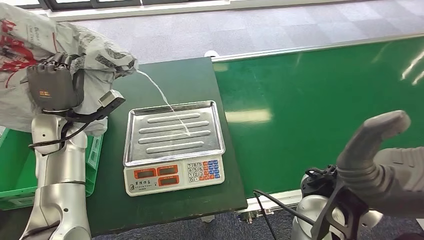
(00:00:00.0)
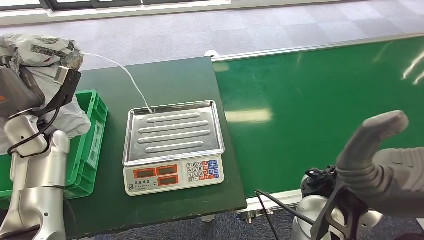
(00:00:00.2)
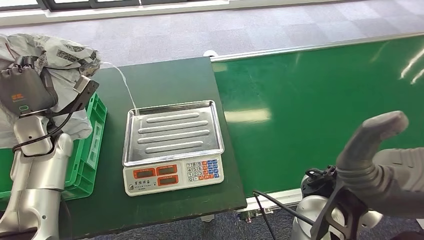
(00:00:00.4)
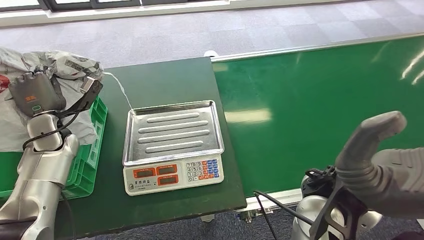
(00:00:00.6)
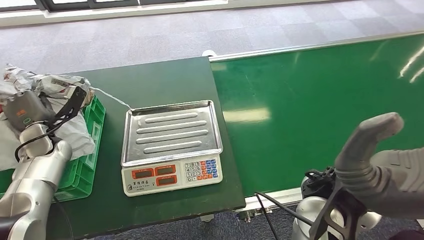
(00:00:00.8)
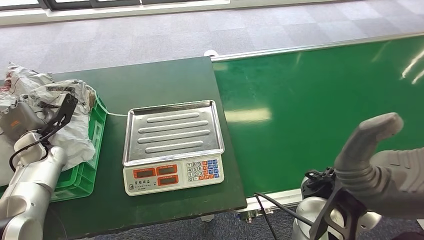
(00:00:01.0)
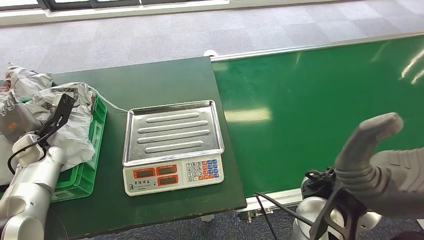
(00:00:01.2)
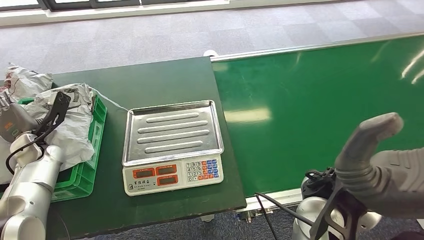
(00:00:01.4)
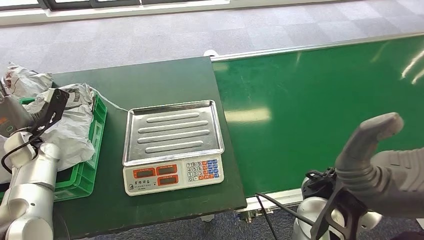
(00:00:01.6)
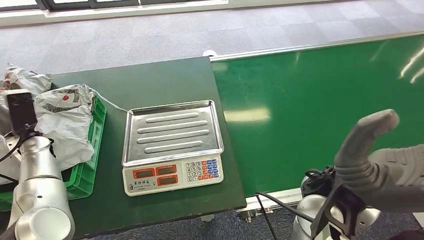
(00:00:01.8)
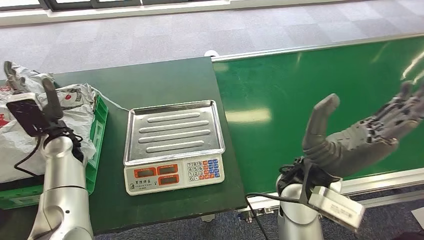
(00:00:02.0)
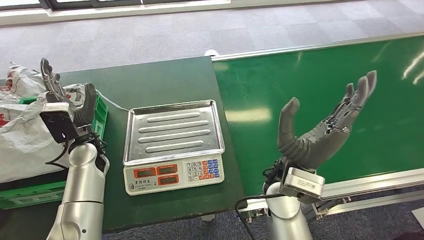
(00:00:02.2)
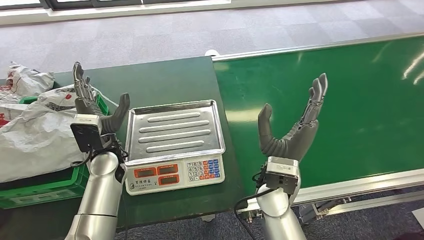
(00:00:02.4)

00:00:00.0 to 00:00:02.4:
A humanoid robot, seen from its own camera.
Task of the whole recording: Weigh the package on the weighing device and place it in the left basket.
Step, 00:00:00.0 to 00:00:02.4: Place the package into the parcel locker.

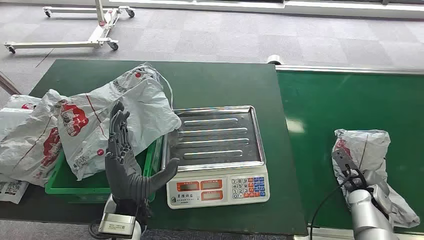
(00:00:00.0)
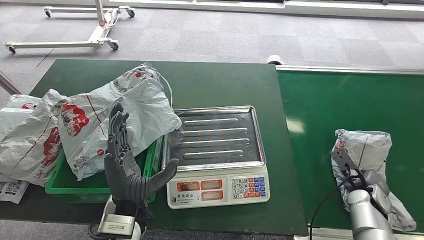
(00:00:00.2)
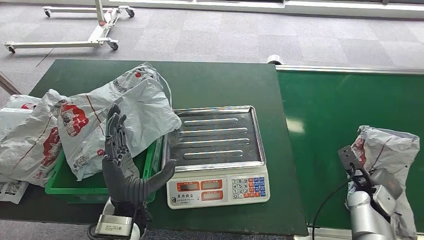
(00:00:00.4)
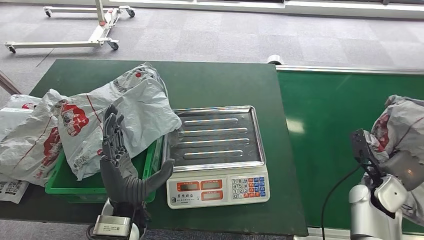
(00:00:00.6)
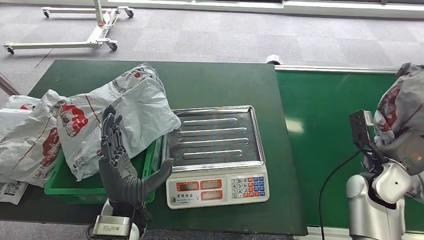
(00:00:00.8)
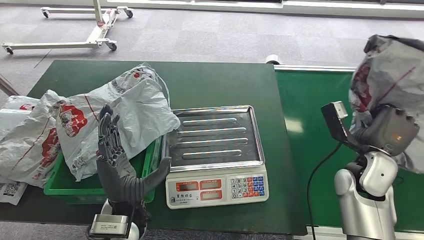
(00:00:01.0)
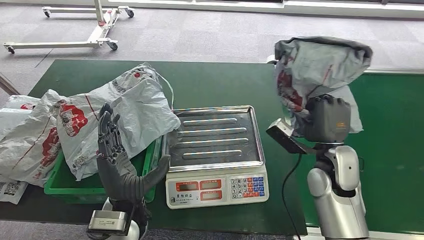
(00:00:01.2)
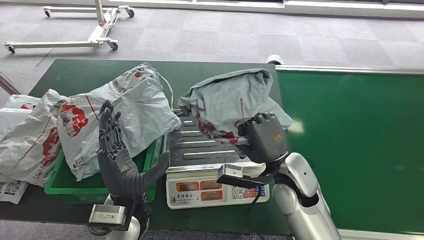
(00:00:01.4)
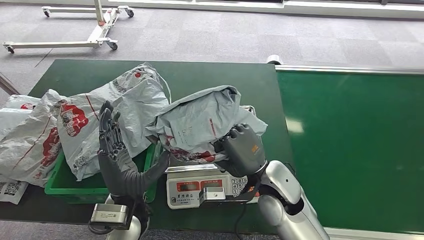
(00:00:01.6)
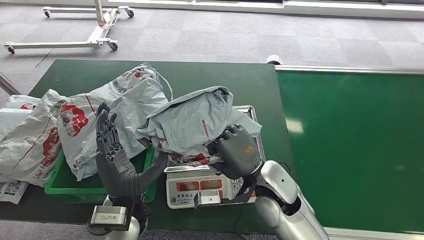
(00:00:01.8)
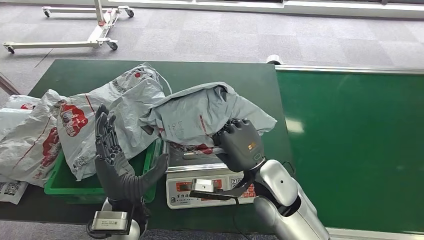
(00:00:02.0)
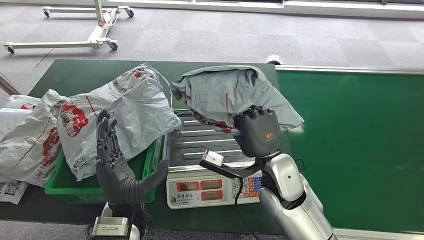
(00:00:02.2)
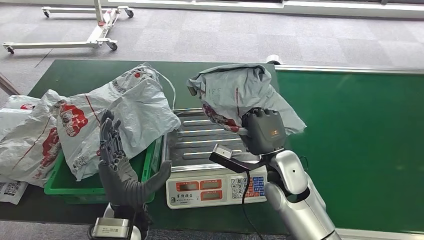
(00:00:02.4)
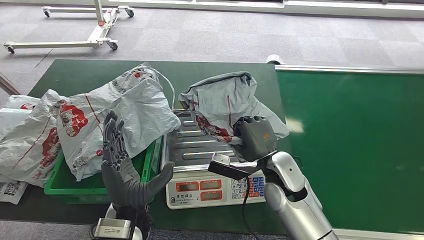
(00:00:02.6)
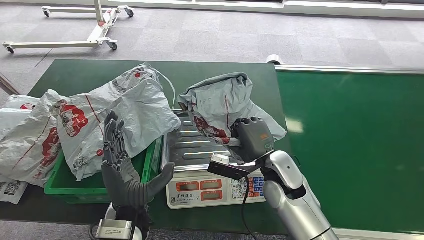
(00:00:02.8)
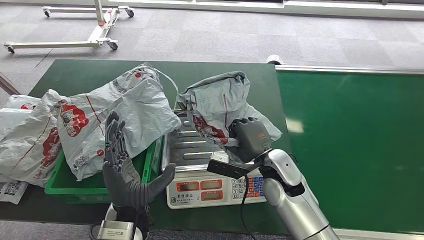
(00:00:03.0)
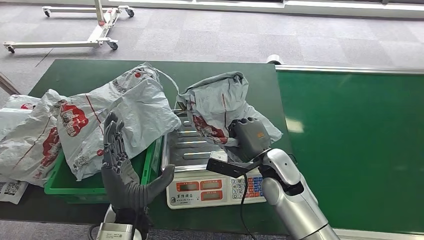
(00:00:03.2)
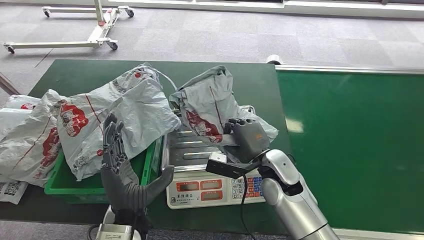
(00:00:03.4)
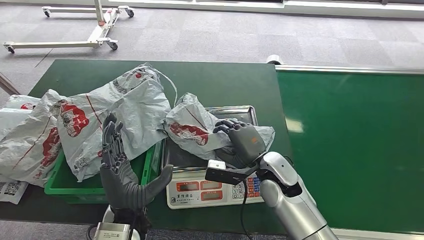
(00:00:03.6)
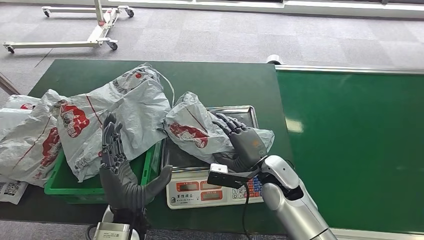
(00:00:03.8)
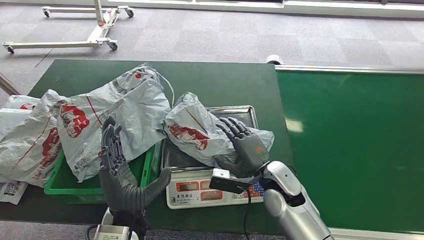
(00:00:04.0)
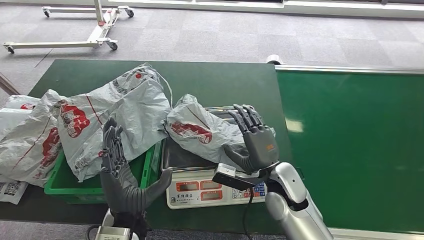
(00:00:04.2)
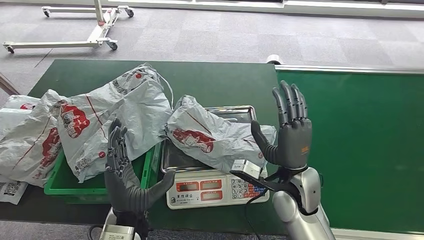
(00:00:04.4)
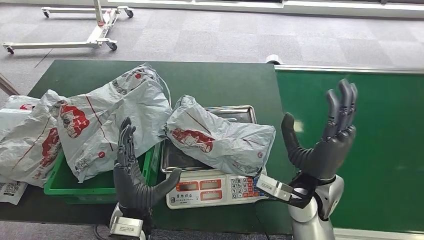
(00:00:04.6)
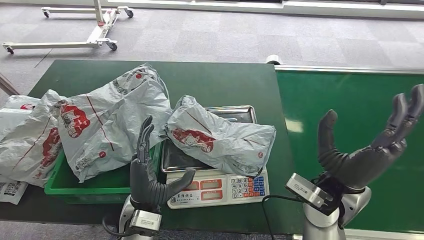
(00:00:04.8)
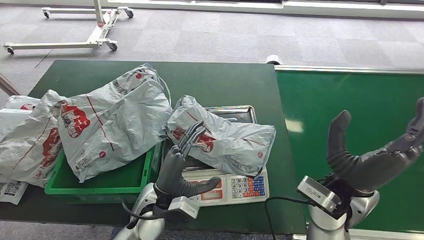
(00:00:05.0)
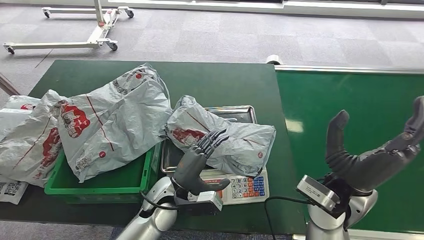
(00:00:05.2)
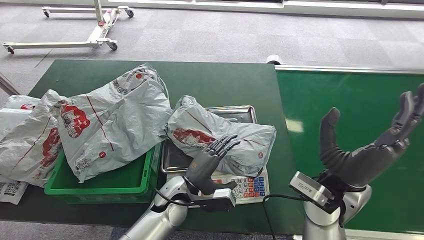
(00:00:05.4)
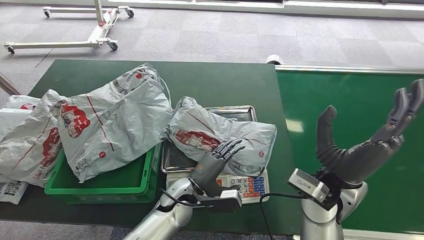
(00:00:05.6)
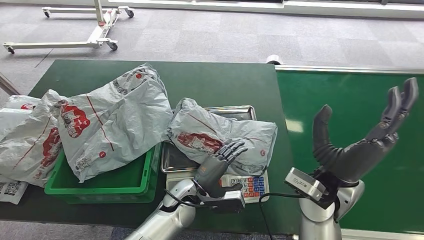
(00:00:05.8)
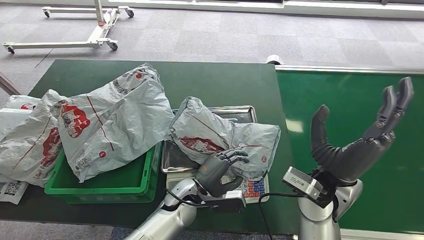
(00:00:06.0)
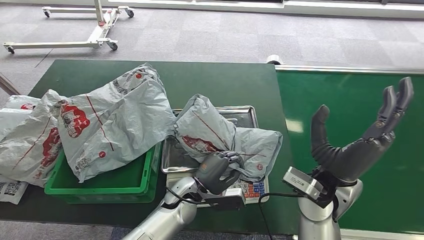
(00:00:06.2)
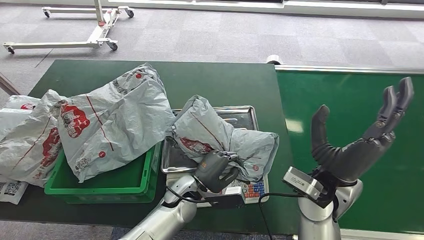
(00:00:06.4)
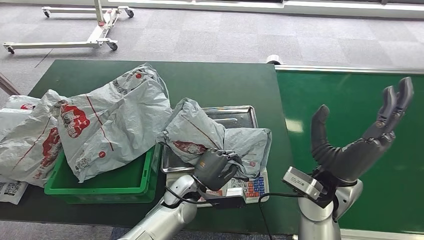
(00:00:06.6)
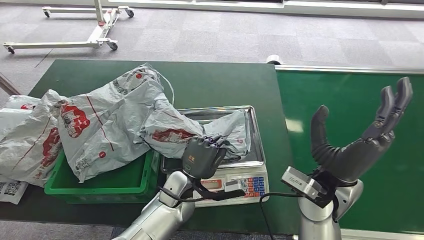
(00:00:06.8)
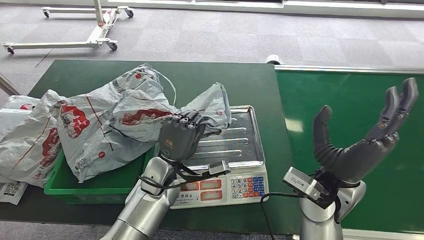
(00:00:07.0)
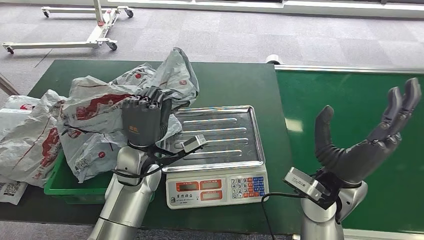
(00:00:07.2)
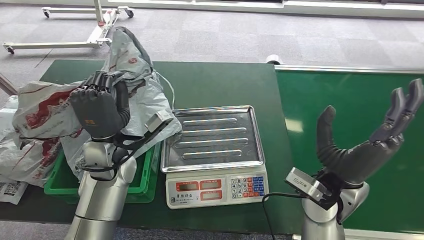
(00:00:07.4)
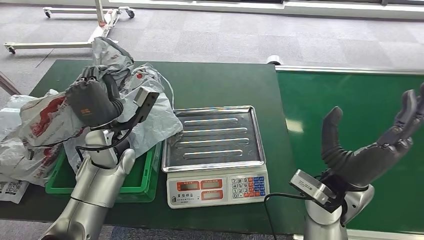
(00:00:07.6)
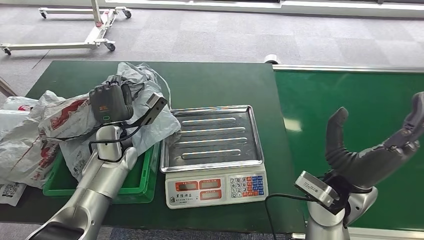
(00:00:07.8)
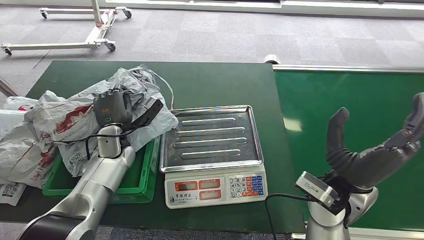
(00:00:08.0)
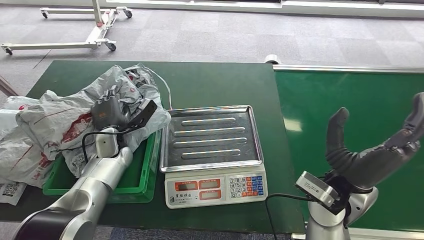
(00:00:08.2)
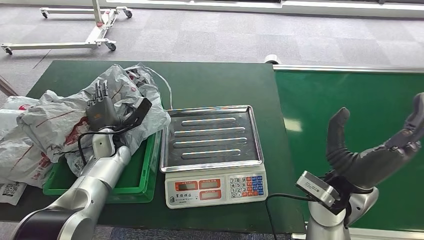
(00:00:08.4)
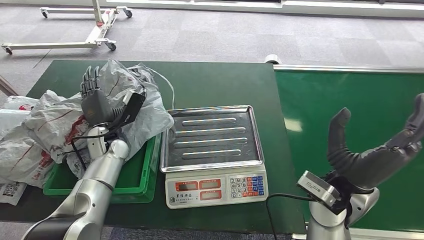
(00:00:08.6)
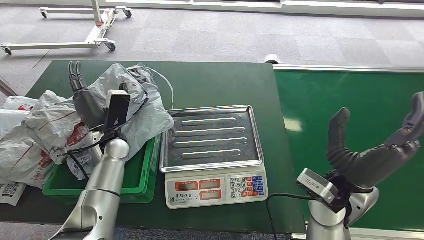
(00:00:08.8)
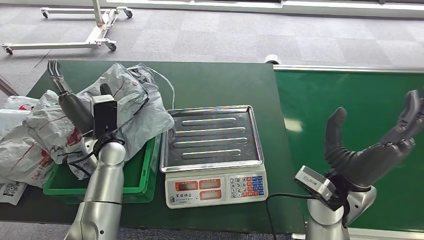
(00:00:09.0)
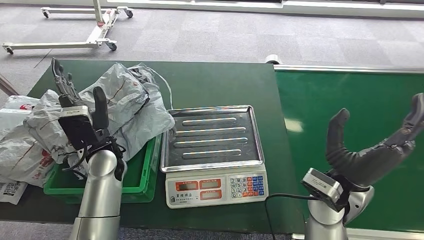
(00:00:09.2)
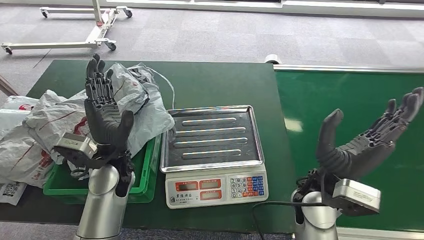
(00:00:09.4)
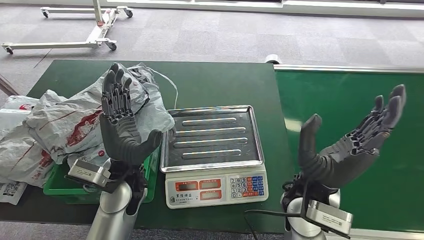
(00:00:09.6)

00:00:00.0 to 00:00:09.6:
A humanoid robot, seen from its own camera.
Task of the whole recording: Weigh the package on the weighing device and place it in the left basket.
Step, 00:00:00.0 to 00:00:02.0: Pick up the package from the conveyor belt.
Step, 00:00:02.2 to 00:00:03.8: Place the package onto the inbound machine.
Step, 00:00:04.0 to 00:00:07.2: Pick up the package from the inbound machine.
Step, 00:00:07.4 to 00:00:09.6: Place the package into the parcel locker.
00:00:01.6 to 00:00:03.2: The right hand moves roughly 5 cm.
00:00:04.8 to 00:00:06.4: The left hand is displaced forward, downward and to the right by roughly 10 cm.
